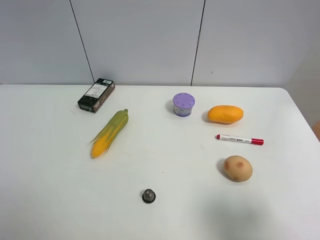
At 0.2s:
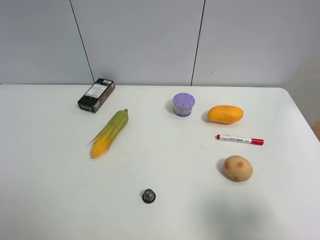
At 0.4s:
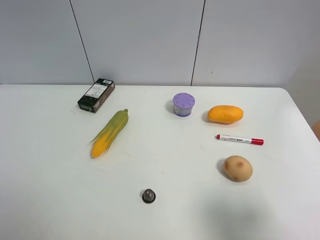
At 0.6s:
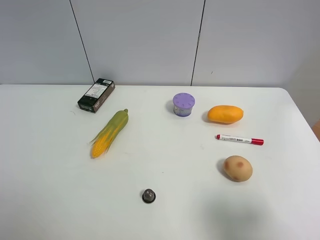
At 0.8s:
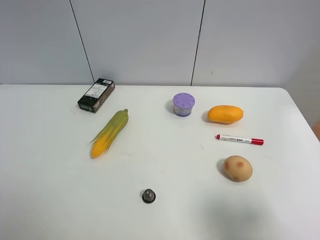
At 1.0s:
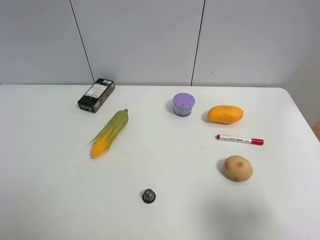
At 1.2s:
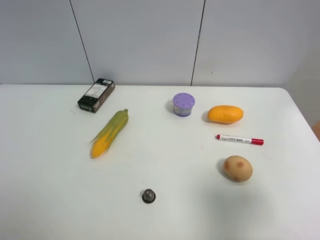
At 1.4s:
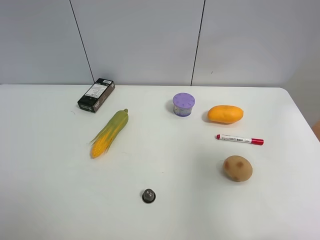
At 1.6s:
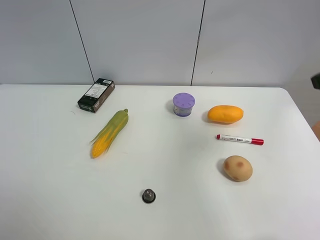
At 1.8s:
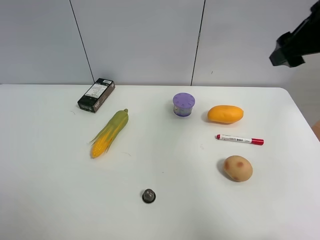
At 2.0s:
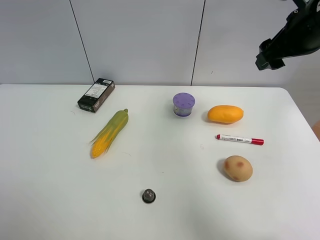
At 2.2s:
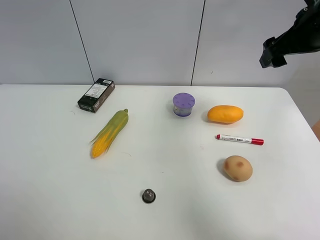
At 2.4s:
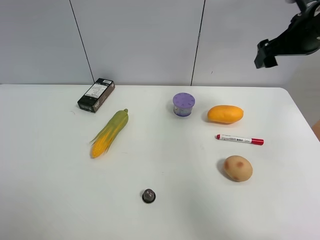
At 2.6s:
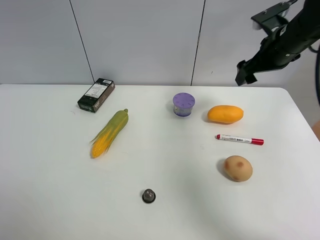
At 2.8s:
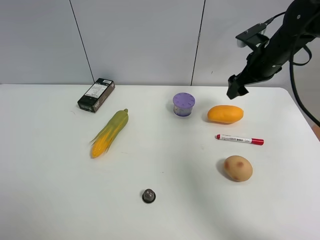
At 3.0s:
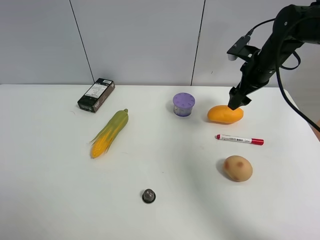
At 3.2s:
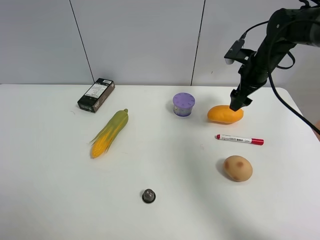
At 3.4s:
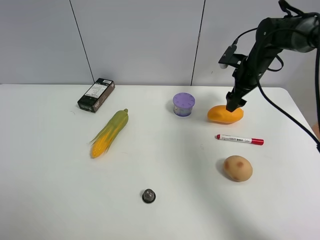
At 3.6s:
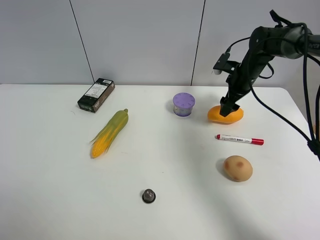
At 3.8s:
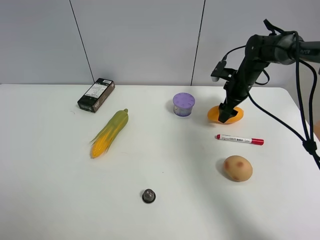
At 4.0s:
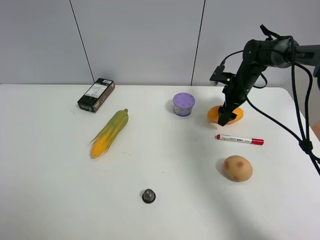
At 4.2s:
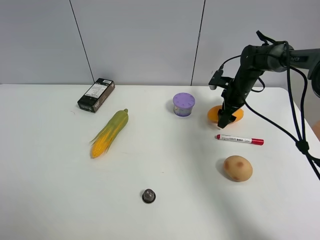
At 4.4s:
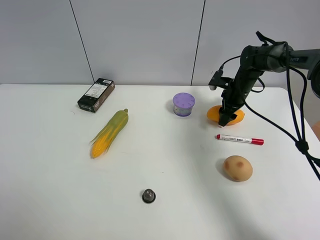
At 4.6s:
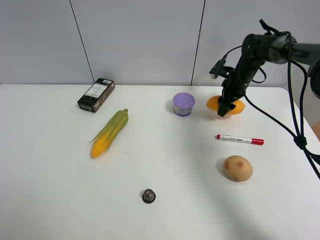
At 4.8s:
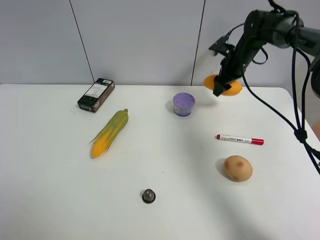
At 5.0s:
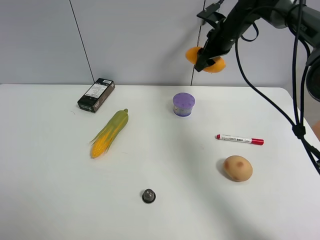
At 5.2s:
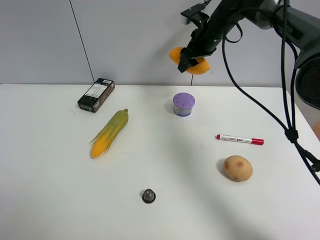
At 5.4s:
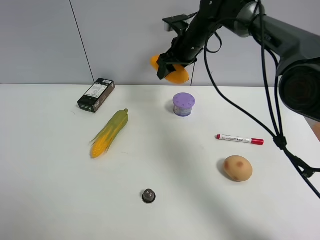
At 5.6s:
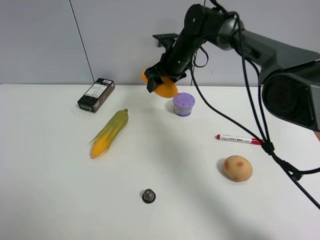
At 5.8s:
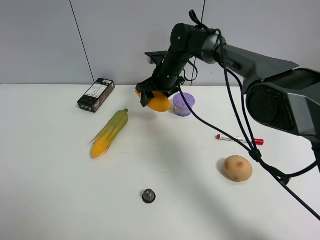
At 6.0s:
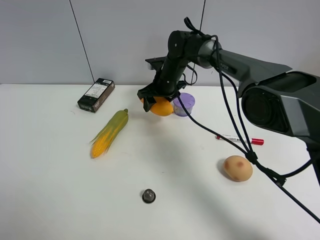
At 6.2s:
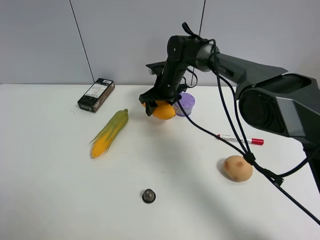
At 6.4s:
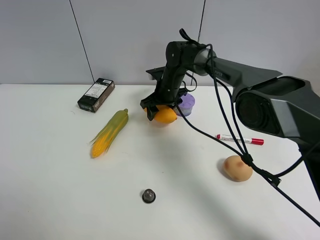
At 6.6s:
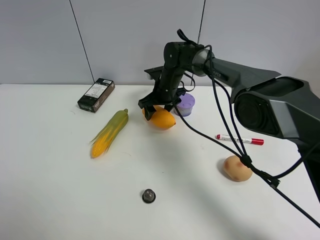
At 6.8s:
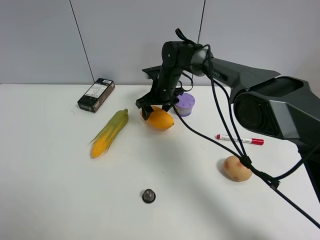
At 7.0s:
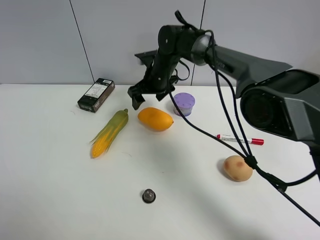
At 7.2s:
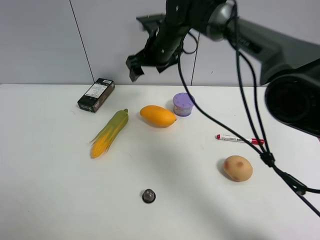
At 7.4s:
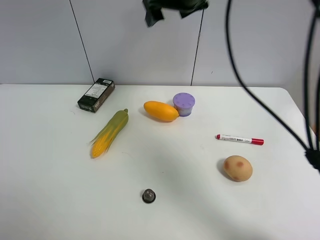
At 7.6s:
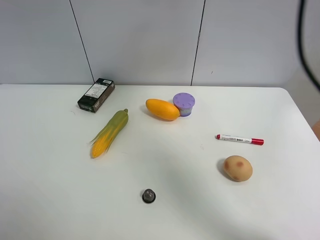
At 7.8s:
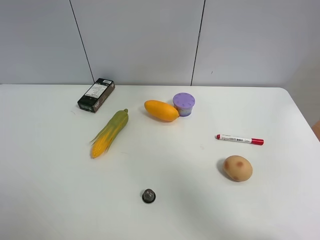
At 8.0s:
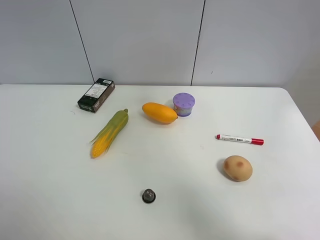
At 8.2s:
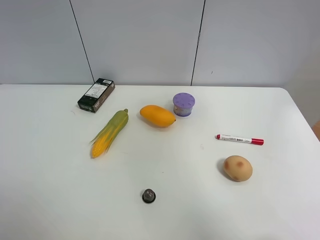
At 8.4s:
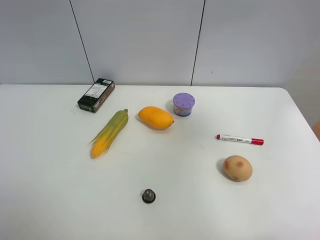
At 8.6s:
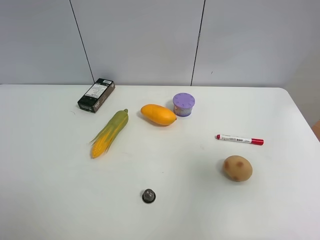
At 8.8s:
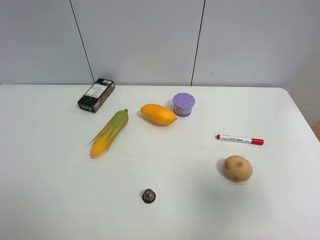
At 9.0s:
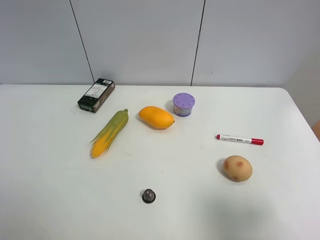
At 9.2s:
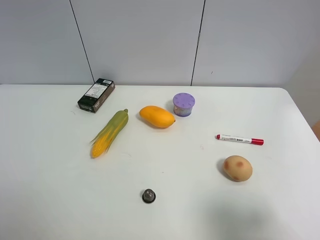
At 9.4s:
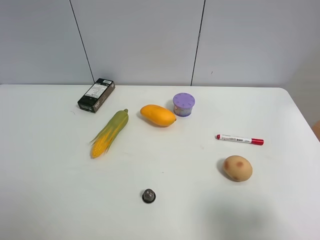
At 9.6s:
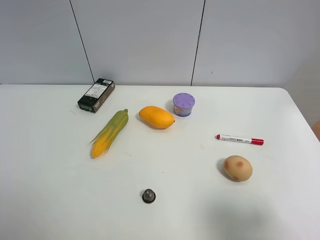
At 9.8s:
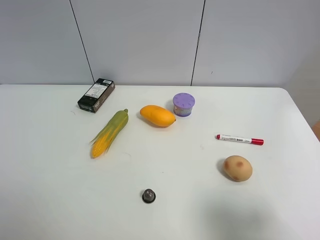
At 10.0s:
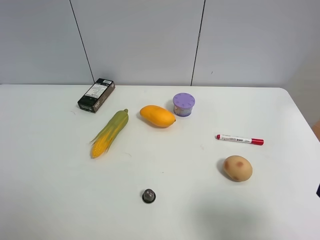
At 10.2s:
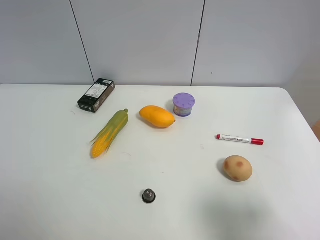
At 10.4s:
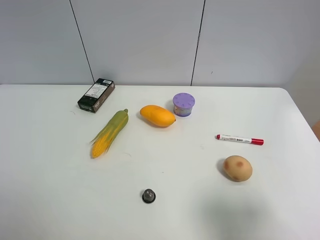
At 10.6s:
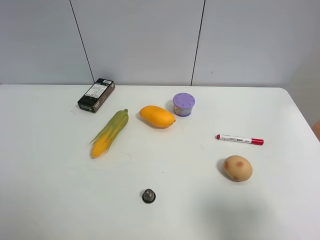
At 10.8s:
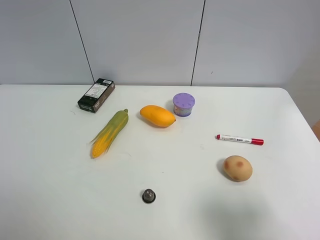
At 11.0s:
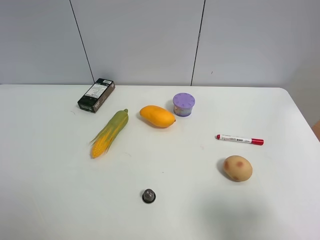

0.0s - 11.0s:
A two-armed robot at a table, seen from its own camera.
Task of the whole recording: the gripper move the object.
Step, 0.0s - 4.2s: Grasp the mango with the right gripper.
Step, 4.4s - 6.8s: Place the mango on the table with the right gripper.
0.0s - 1.6s: The right gripper goes approximately 20 cm forward and upward, and closes.
1.6s - 3.2s: The right gripper heads forward and downward, covering some 30 cm, and opens up.
3.2s - 4.8s: The right gripper is displaced forward by about 5 cm, goes downward and returns, some 10 cm each way, and closes up.
4.8s - 6.2s: The right gripper heads to the left, covering approximately 20 cm.
6.2s - 7.8s: The right gripper shifts some 50 cm upward, to the right and backward, and opens.
7.8s - 9.4s: The right gripper goes some 40 cm backward and downward.
